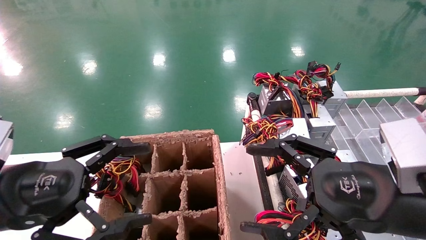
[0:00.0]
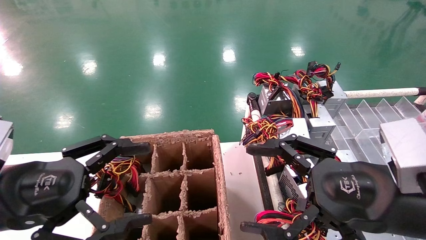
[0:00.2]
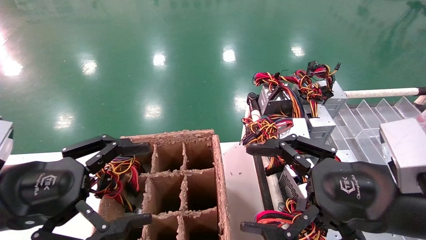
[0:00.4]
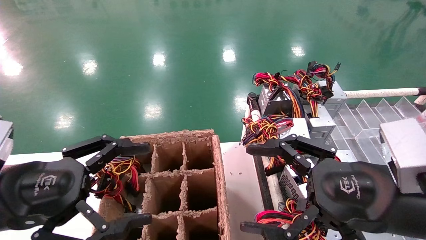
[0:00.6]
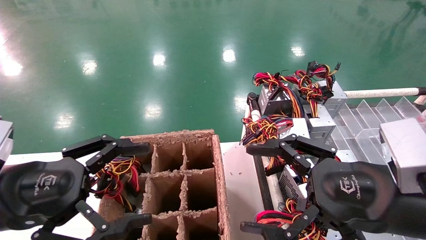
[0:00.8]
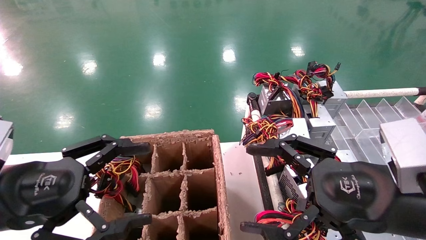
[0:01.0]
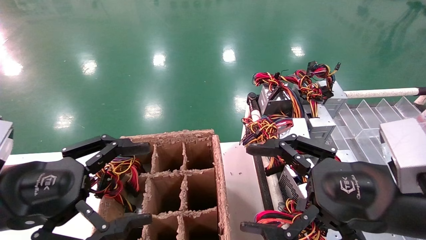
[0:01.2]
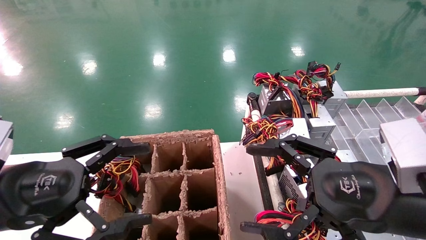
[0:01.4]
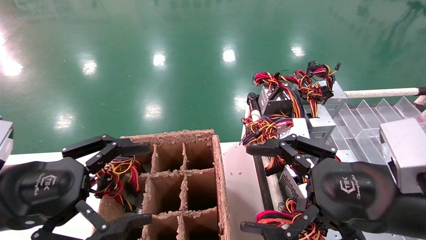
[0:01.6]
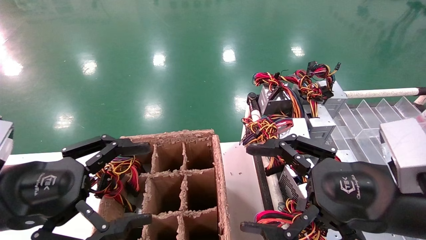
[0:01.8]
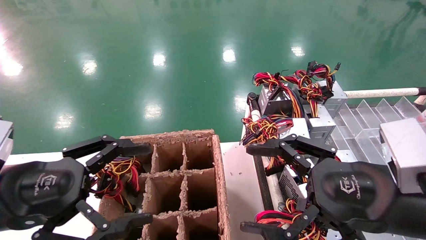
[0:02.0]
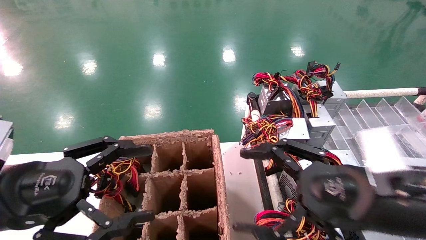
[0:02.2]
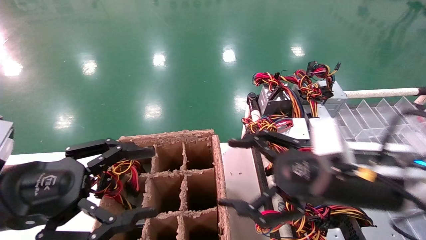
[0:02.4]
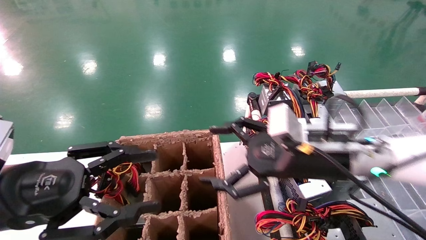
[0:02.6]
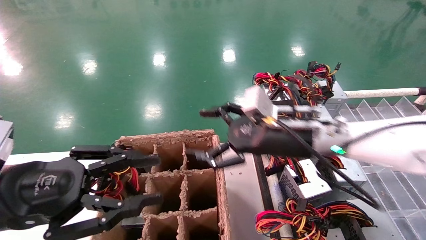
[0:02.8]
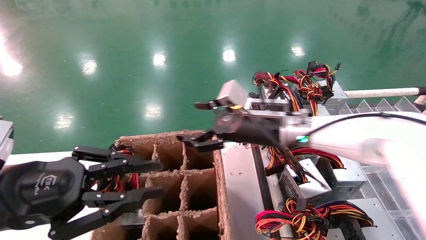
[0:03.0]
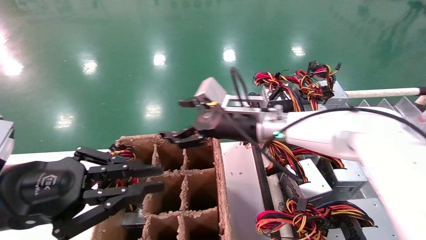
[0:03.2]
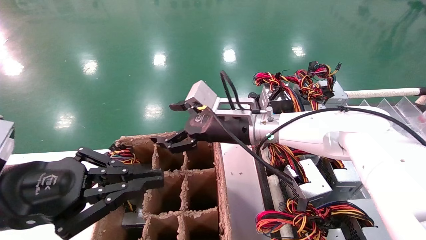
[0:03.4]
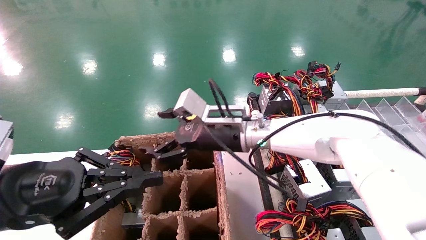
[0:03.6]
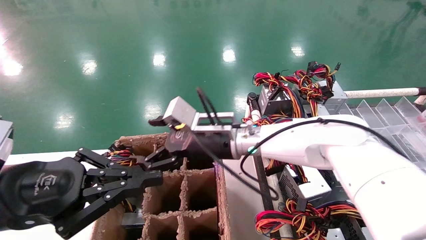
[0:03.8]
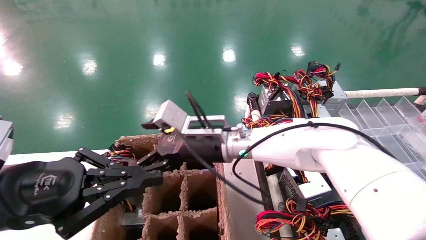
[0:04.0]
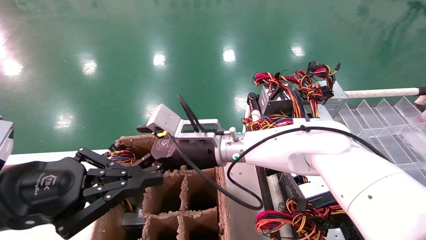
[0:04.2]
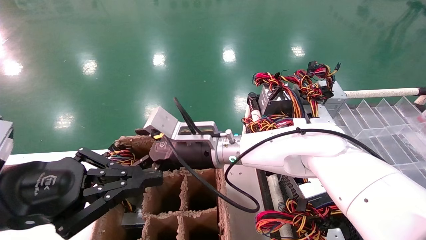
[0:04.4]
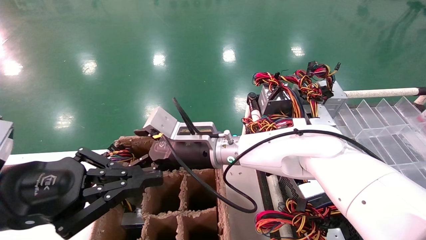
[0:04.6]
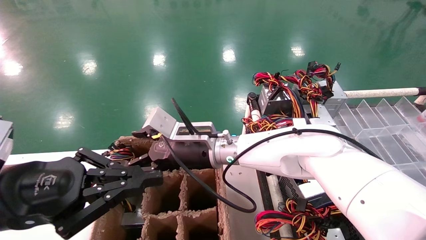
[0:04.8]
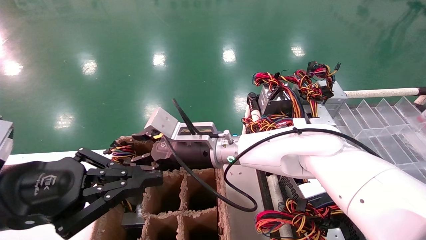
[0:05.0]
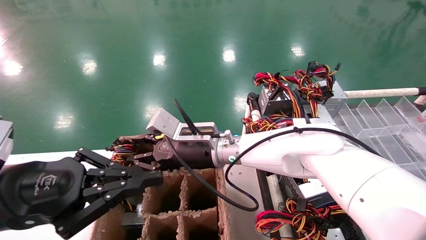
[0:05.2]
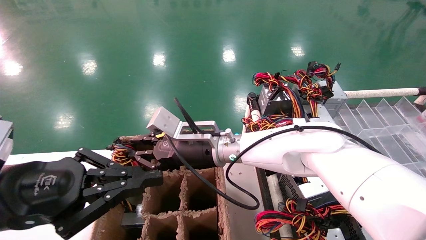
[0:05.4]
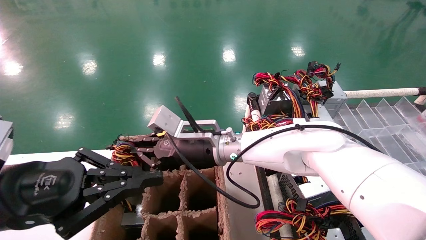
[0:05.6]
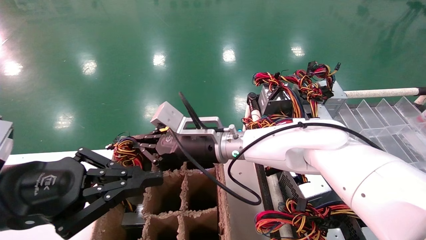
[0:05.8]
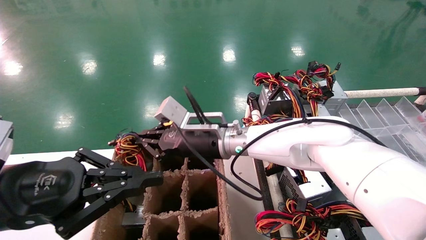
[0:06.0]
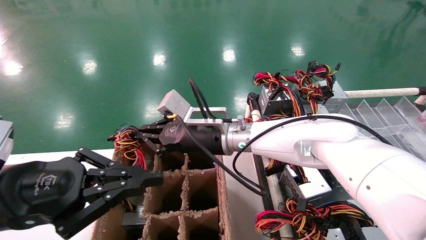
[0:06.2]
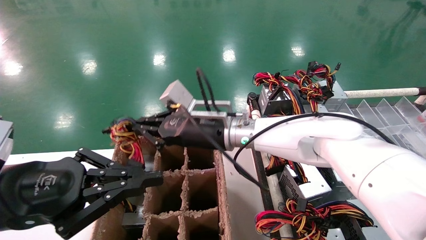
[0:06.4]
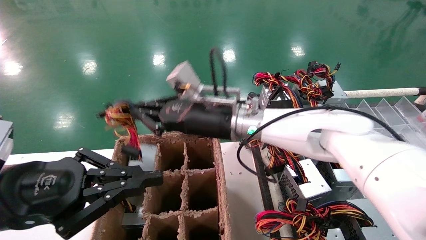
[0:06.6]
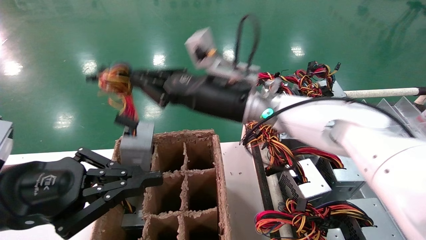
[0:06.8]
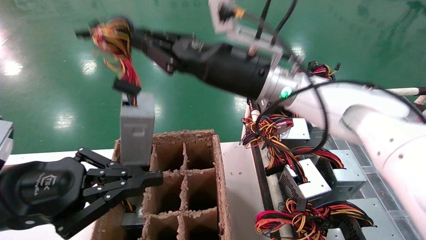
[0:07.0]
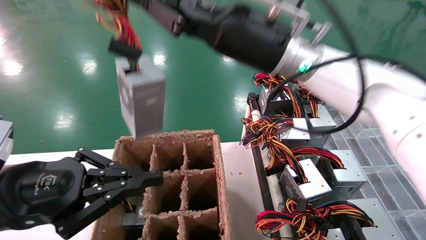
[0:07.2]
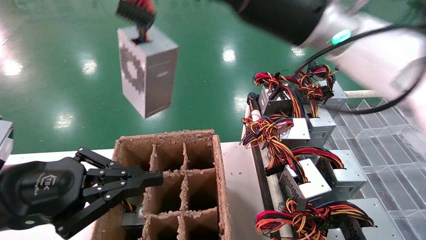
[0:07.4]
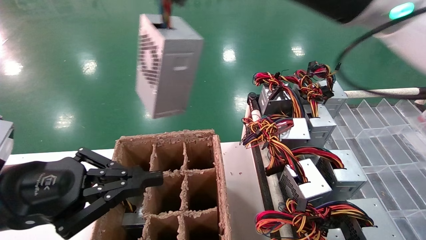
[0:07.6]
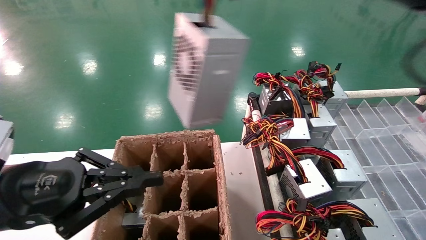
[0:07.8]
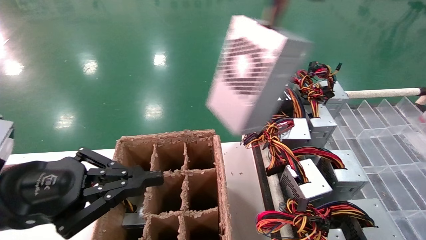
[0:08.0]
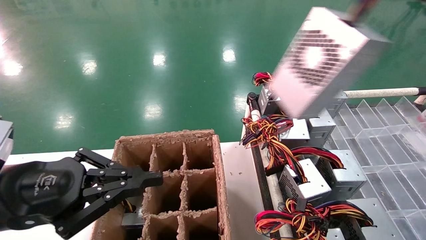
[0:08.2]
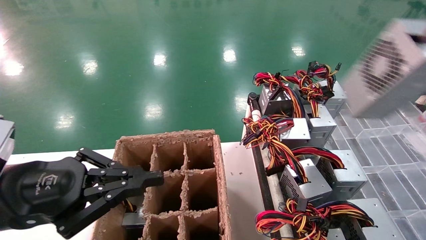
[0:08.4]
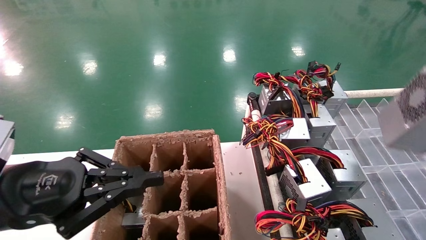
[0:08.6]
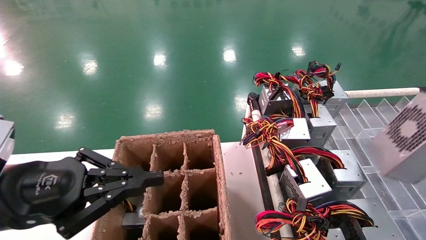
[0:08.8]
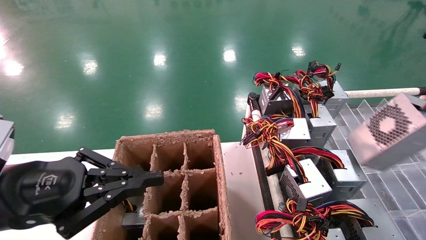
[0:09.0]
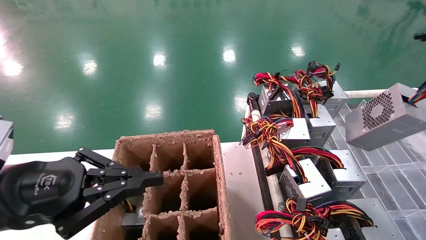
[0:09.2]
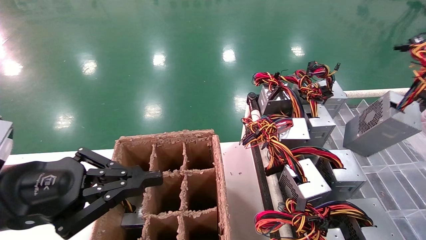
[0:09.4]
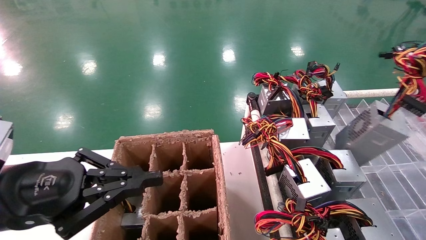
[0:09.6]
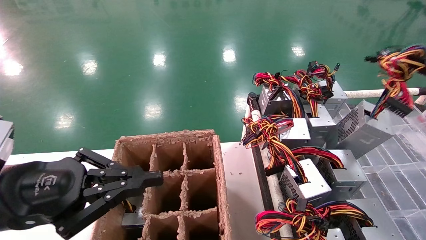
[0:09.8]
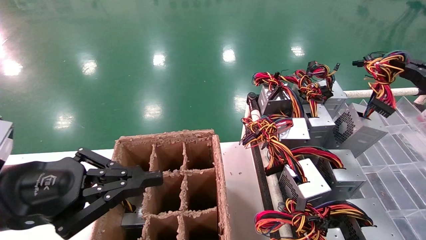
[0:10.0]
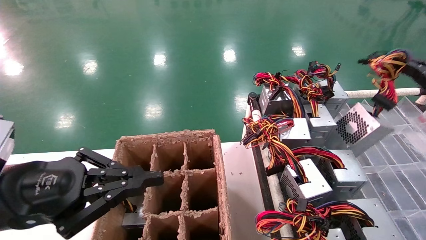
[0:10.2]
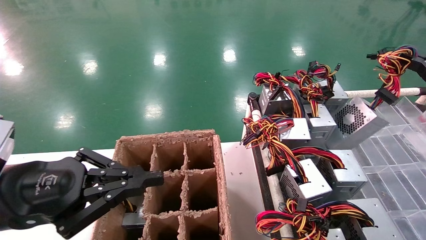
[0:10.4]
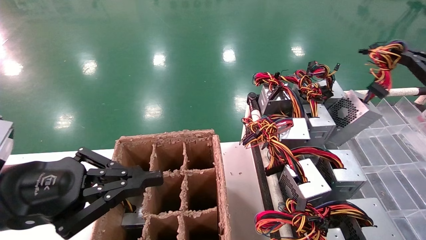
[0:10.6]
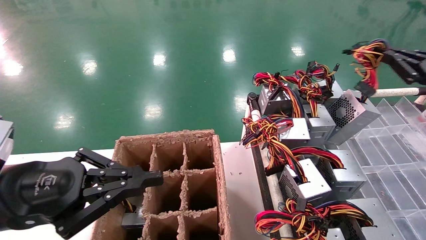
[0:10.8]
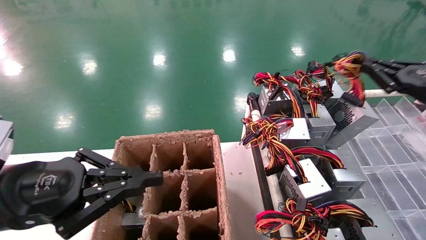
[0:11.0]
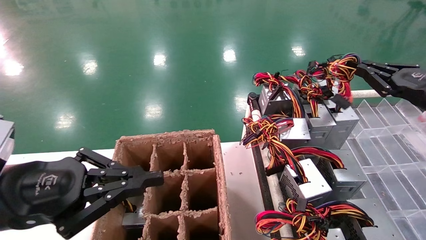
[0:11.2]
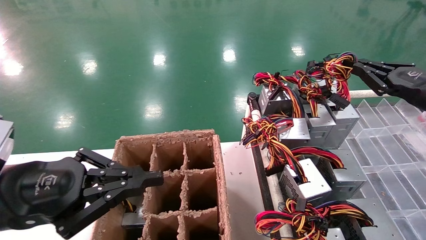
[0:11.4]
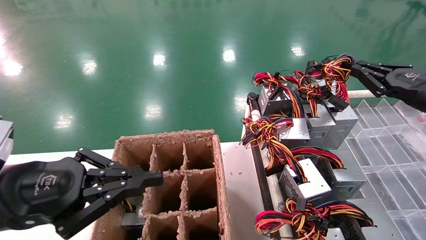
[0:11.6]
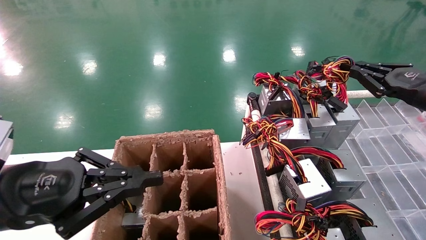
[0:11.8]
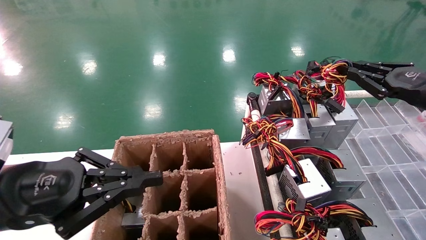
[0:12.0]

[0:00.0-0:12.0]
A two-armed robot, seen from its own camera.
Step, 0:02.4 to 0:05.6: Grab the main unit power supply from the containment box.
0:00.0 to 0:01.6: Both grippers stay about where they are.
0:01.6 to 0:03.0: The right gripper is displaced forward and to the left by some 25 cm. Meanwhile the left gripper closes its fingers.
0:03.0 to 0:04.4: The right gripper travels to the left by some 10 cm, while the left gripper closes.
0:04.4 to 0:06.0: The right gripper closes its fingers.
0:06.0 to 0:07.6: The right gripper goes approximately 30 cm upward, to the right and backward.
0:07.6 to 0:09.0: The right gripper heads to the right, covering roughly 35 cm.
0:09.0 to 0:10.4: The right gripper goes approximately 15 cm forward.
0:10.4 to 0:12.0: The right gripper moves to the left, about 5 cm.

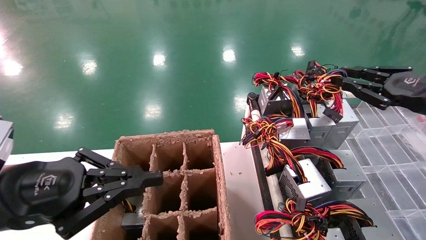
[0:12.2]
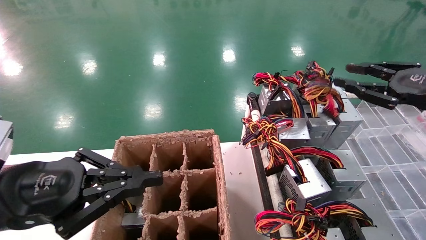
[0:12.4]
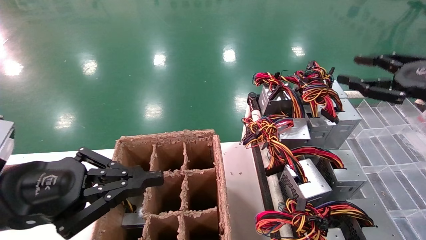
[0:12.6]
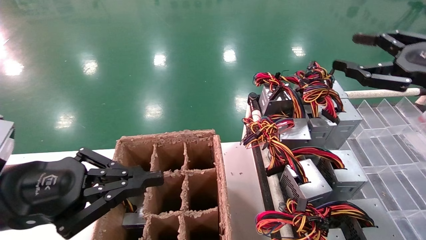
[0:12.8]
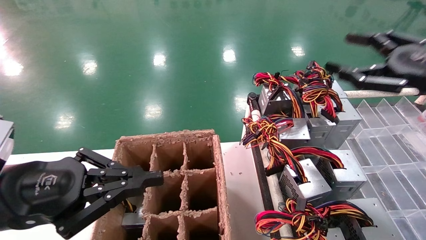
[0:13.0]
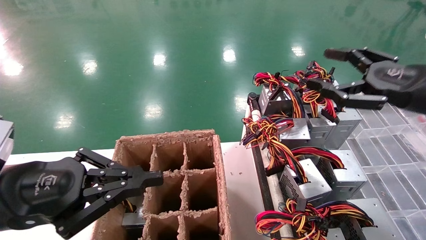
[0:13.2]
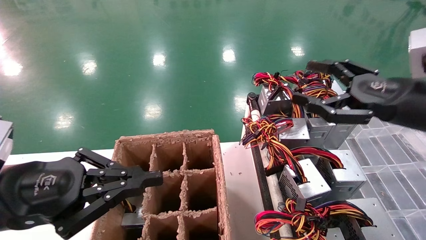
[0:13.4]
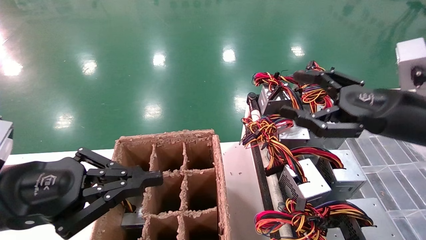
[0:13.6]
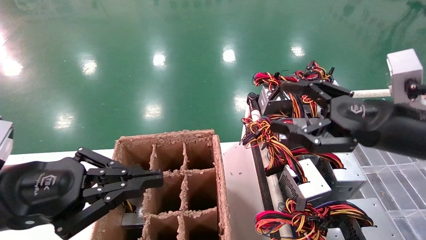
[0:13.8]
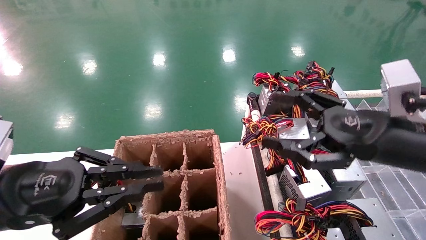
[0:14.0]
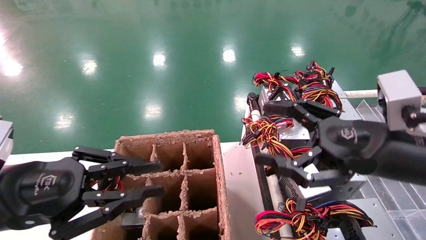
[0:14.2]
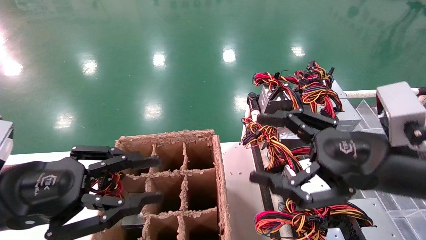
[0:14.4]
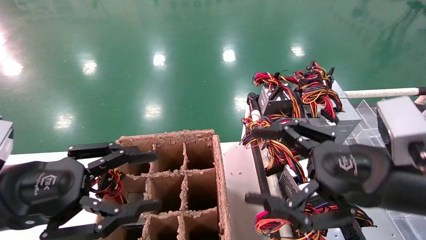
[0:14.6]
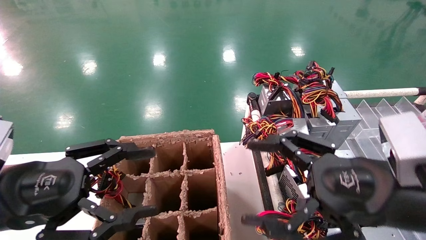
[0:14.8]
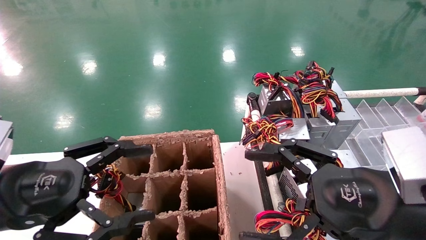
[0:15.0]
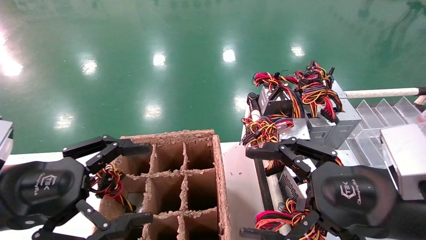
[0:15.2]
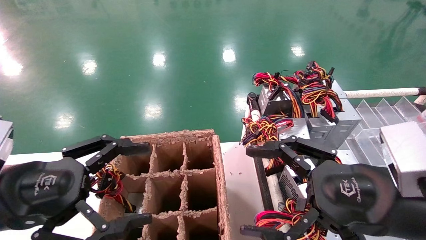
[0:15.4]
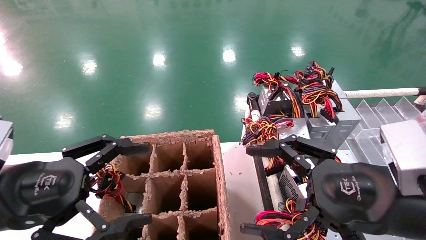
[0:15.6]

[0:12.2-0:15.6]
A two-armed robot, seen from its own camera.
0:12.2 to 0:13.8: The right gripper moves to the left, approximately 10 cm, and opens up.
0:13.8 to 0:15.6: The right gripper heads backward and to the left, covering about 10 cm. Meanwhile the left gripper opens up.

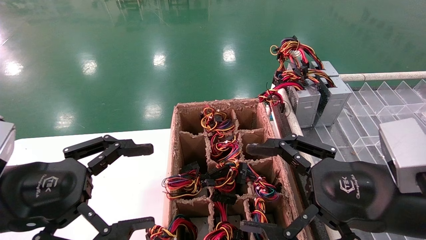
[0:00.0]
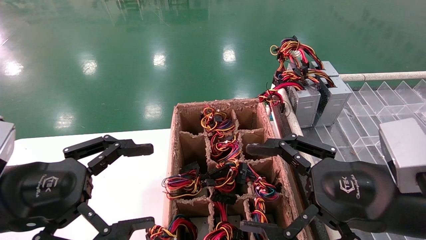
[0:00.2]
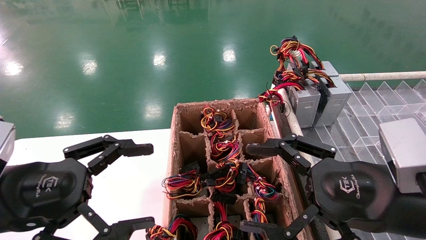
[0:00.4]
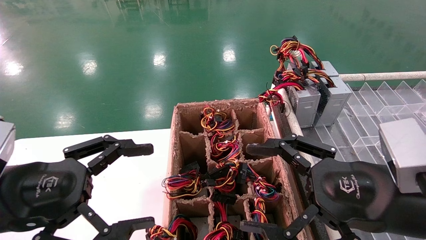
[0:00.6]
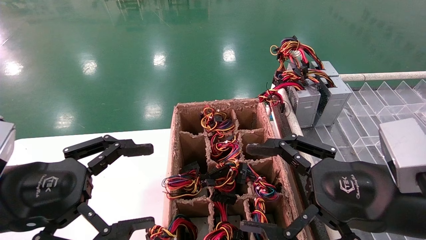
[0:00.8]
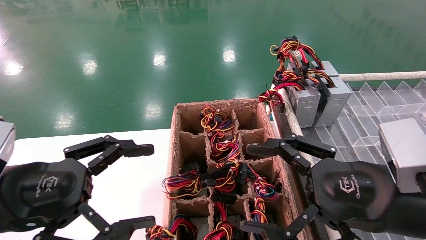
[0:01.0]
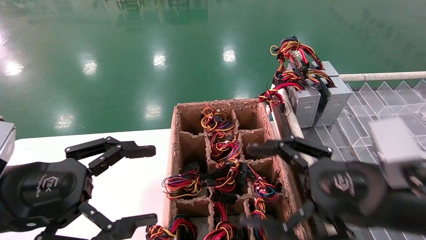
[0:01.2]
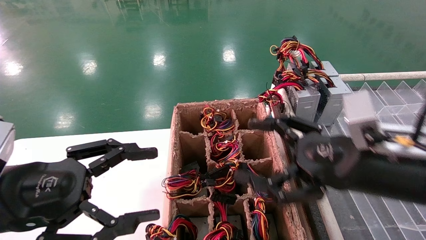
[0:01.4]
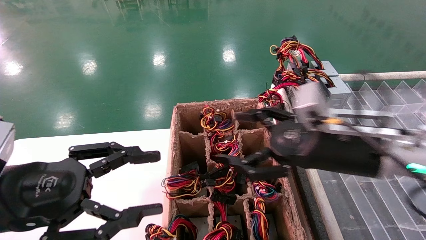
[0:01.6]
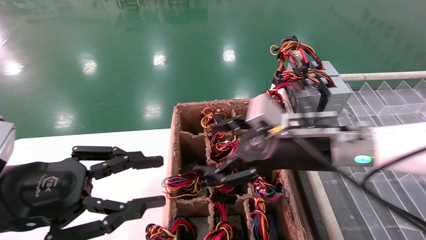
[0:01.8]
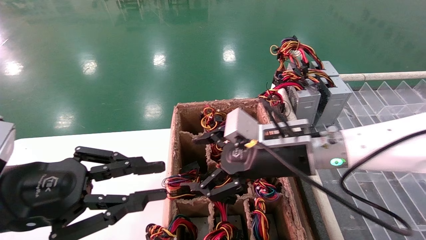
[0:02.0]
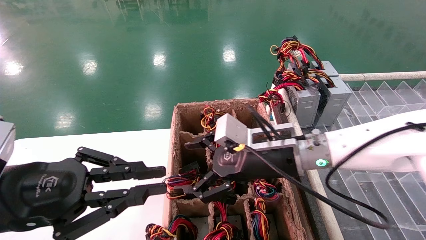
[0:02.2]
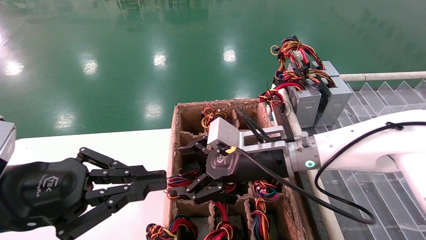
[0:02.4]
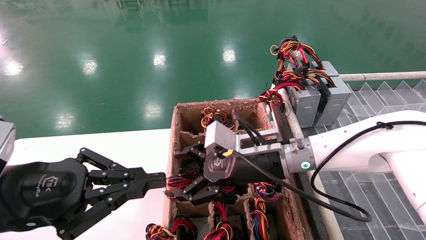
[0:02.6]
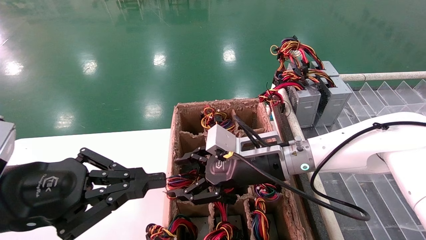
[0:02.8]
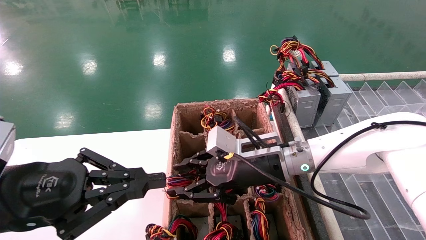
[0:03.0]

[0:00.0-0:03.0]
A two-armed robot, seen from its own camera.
0:00.0 to 0:01.6: The right gripper travels forward by roughly 10 cm.
0:01.6 to 0:03.0: The right gripper goes approximately 15 cm to the left, forward and downward, and closes; the left gripper closes its fingers.
